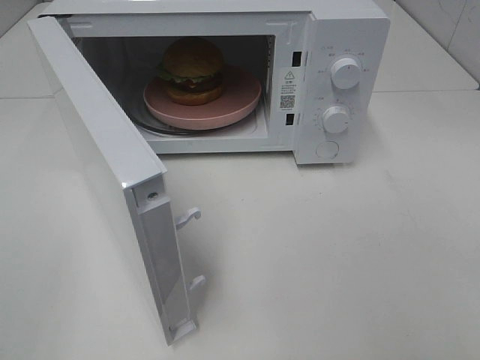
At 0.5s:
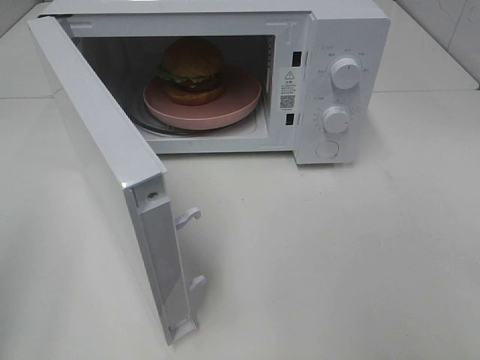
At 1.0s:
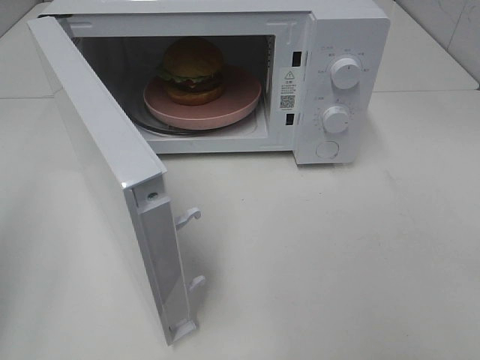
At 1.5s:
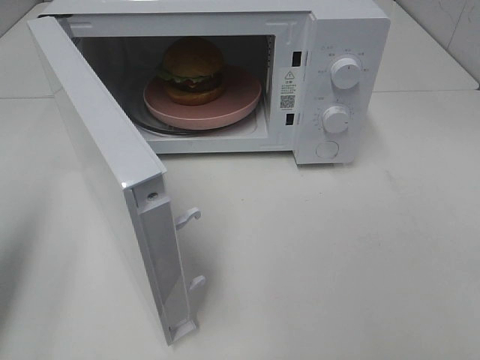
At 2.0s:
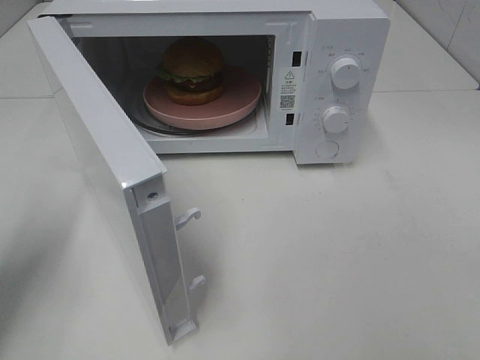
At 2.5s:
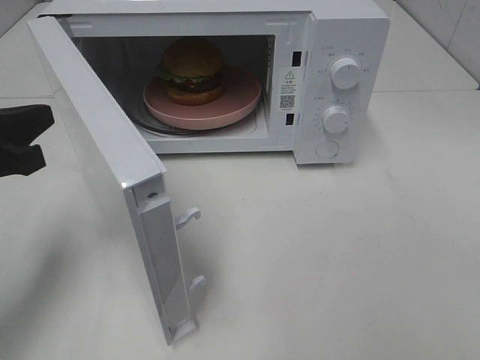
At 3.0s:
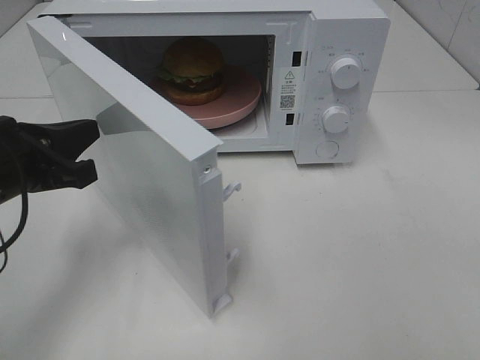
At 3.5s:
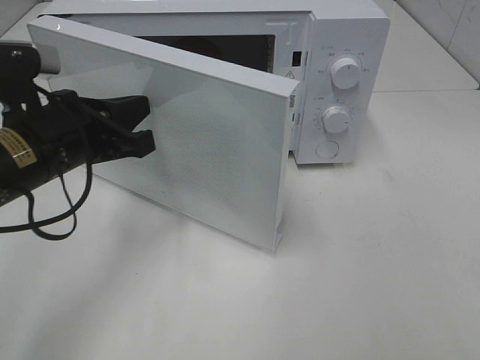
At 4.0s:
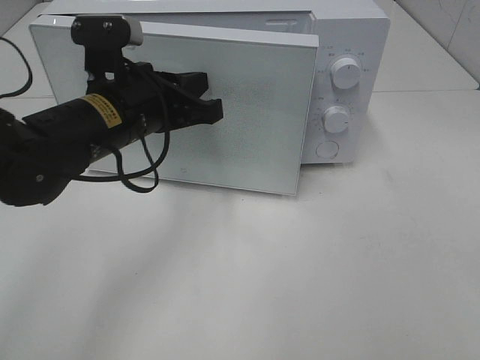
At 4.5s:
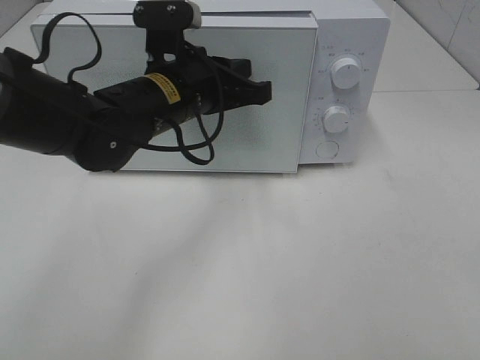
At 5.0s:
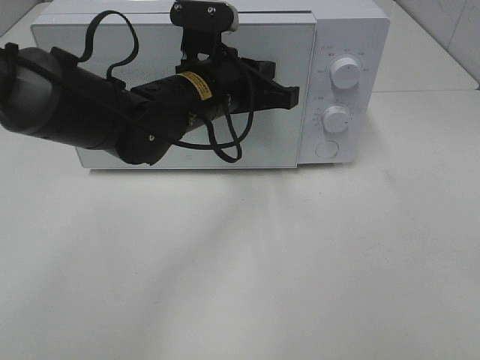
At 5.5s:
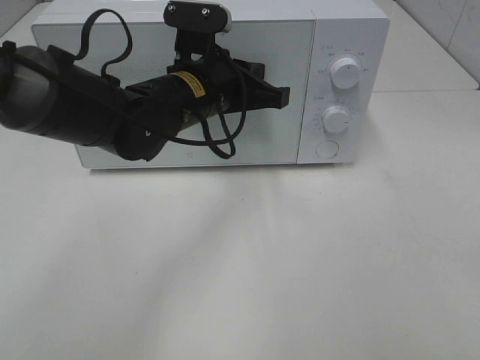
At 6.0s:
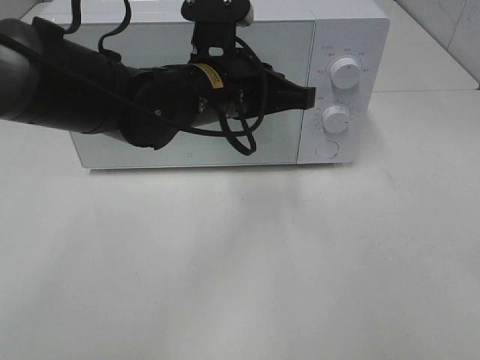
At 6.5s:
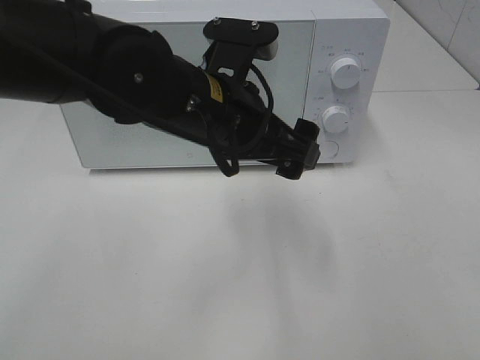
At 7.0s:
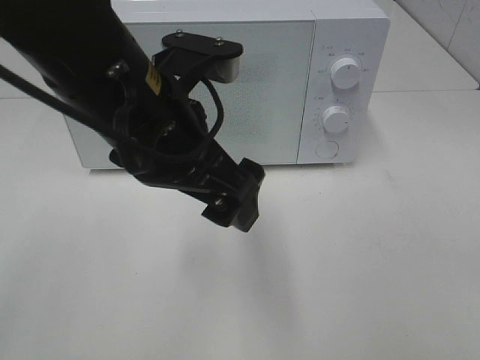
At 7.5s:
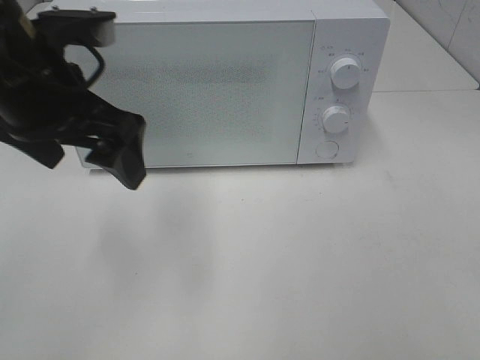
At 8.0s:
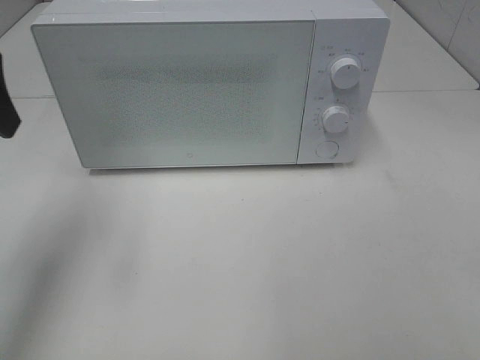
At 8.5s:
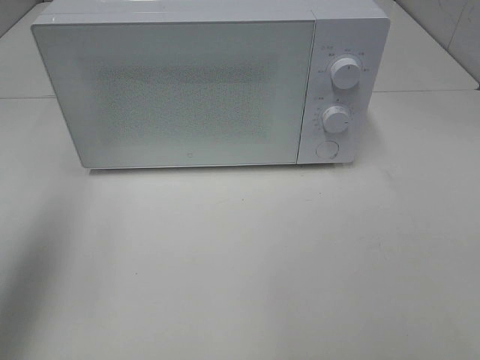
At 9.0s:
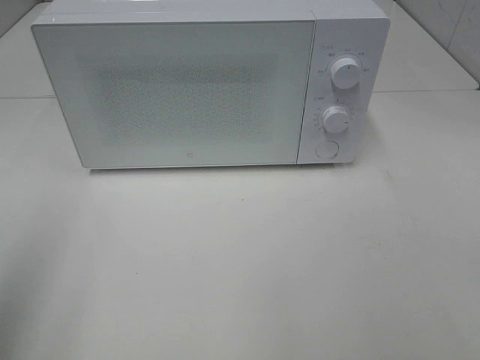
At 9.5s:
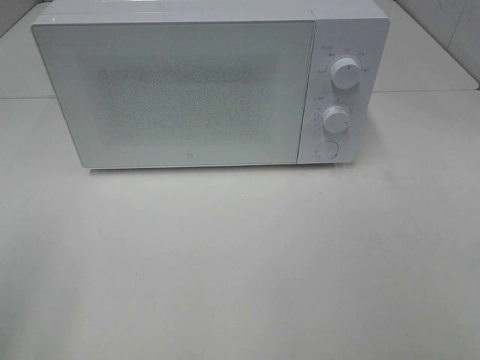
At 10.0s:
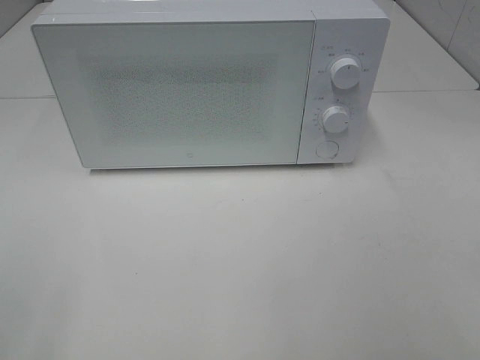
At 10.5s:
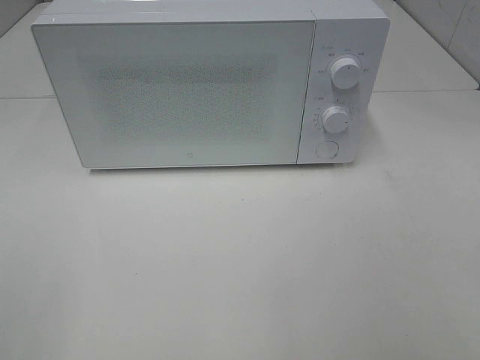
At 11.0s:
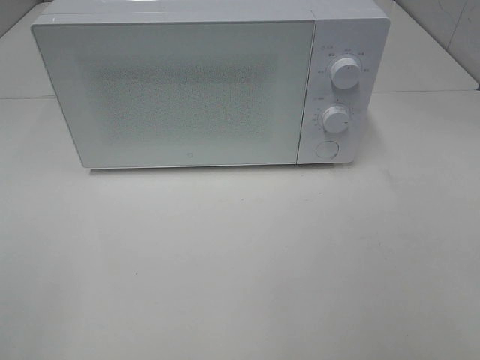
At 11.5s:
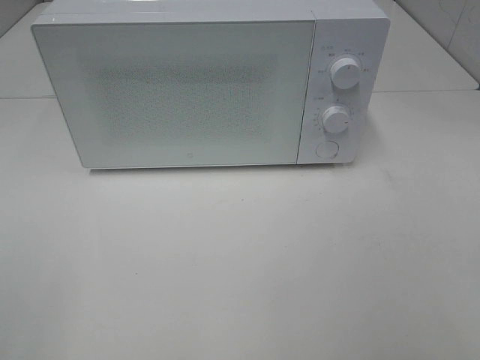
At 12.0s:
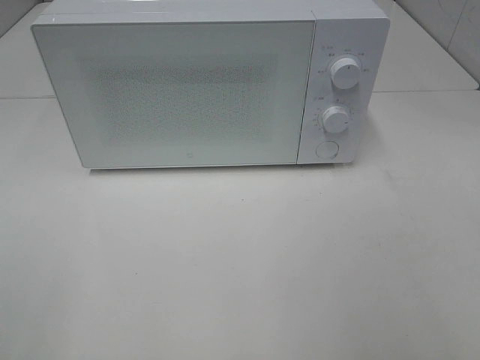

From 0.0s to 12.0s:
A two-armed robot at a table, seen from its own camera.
Task of the whole recording: Heat the burger.
Step, from 0.0s to 5.5s: Left hand: close the microwave door.
From 0.0s to 2.0s: The left gripper heads forward and downward, covering some 20 cm, and closes.
From 2.0s to 4.0s: The left gripper goes some 20 cm to the right and forward.
From 4.0s to 6.0s: The left gripper moves to the right, approximately 10 cm.
From 6.0s to 8.0s: The left gripper moves to the left and upward, about 30 cm, and opens.
From 8.0s to 10.0s: The left gripper moves backward, about 25 cm.

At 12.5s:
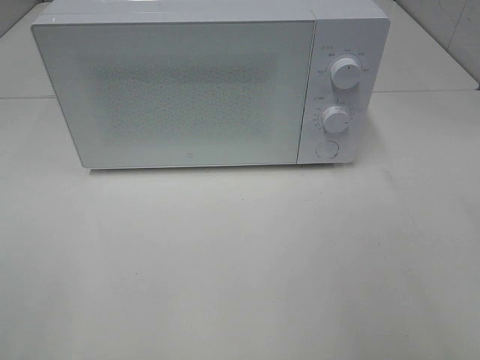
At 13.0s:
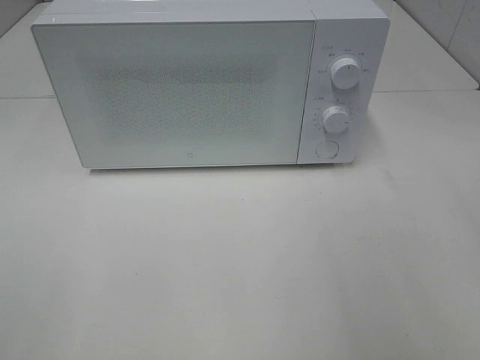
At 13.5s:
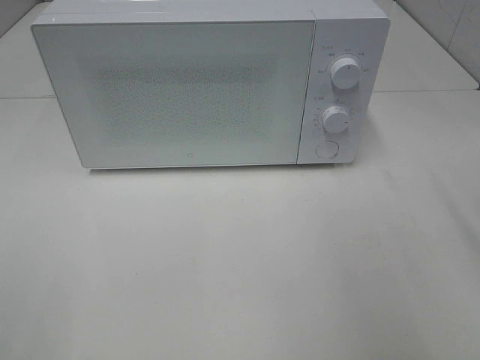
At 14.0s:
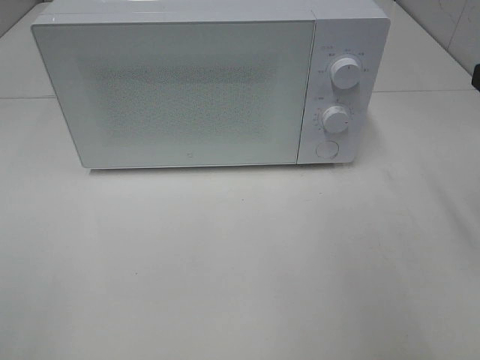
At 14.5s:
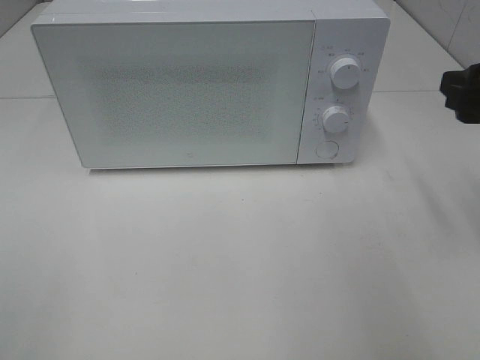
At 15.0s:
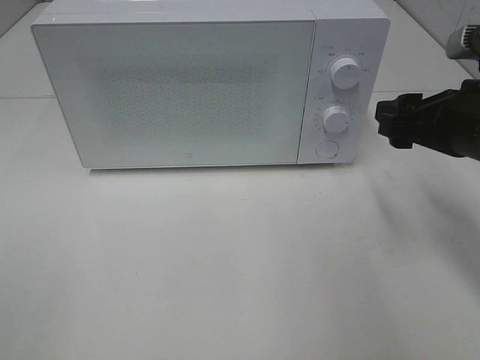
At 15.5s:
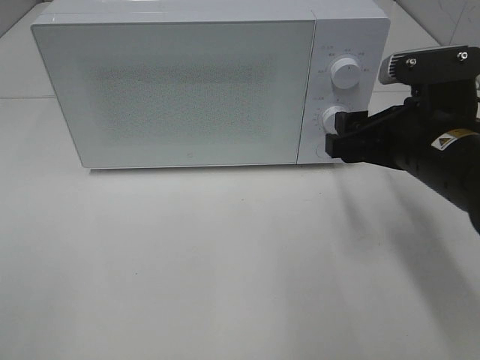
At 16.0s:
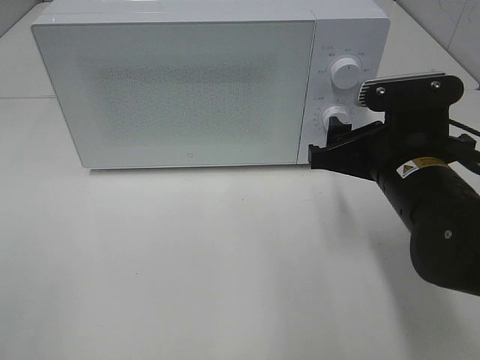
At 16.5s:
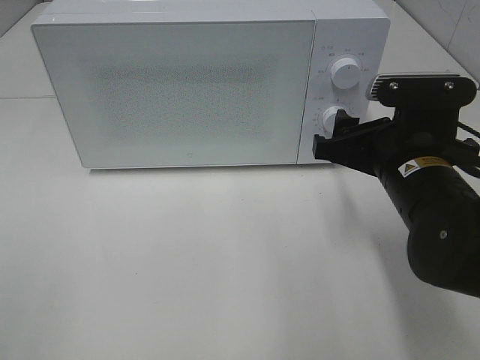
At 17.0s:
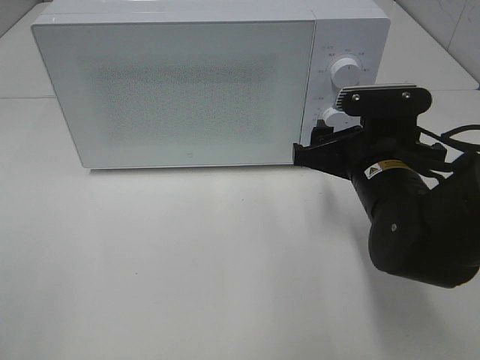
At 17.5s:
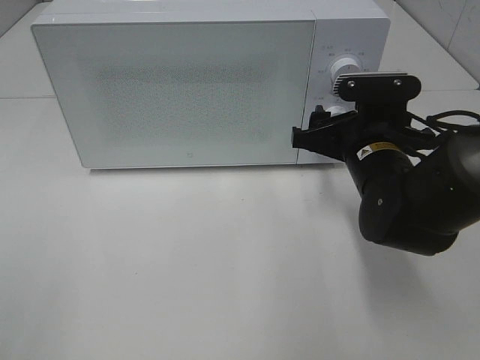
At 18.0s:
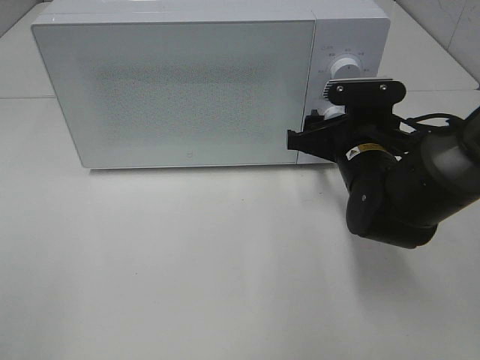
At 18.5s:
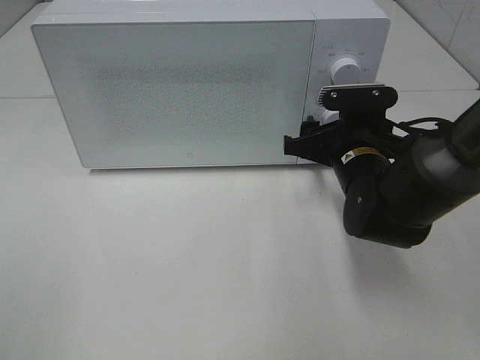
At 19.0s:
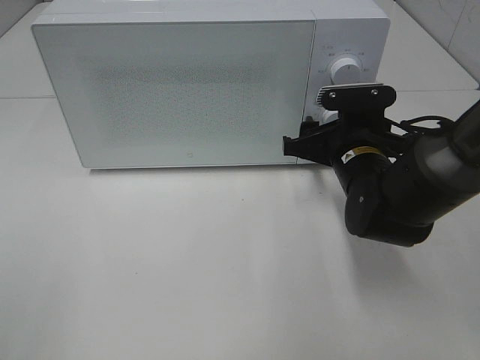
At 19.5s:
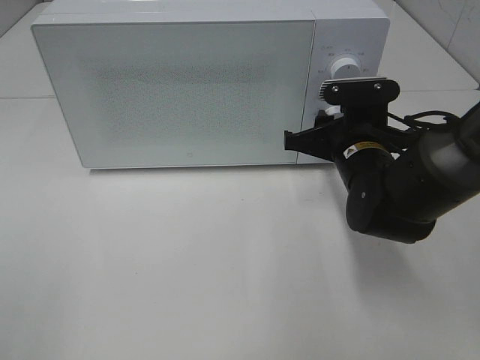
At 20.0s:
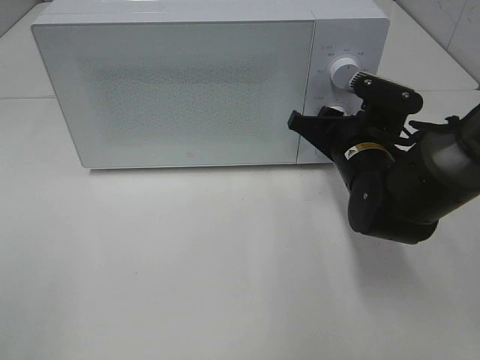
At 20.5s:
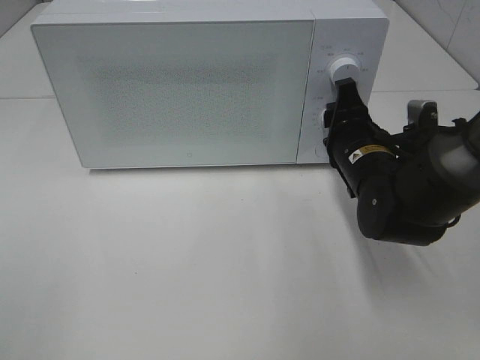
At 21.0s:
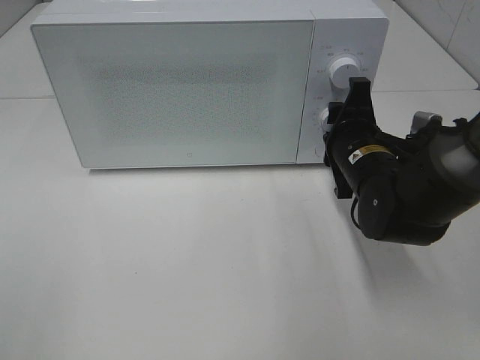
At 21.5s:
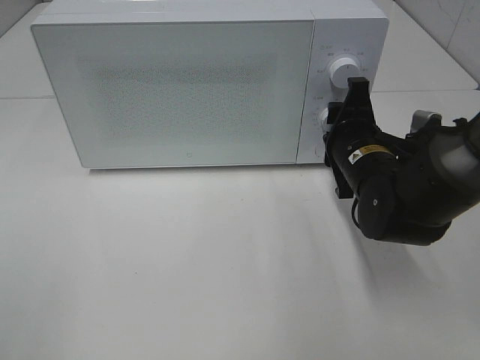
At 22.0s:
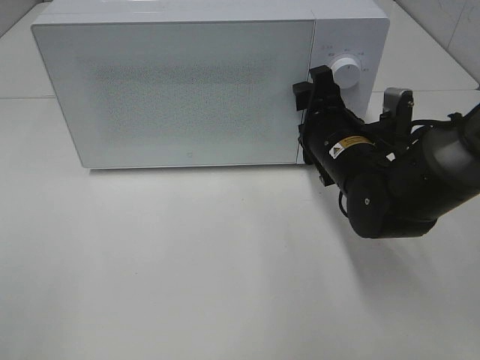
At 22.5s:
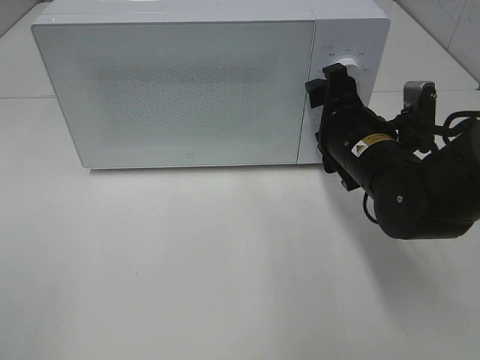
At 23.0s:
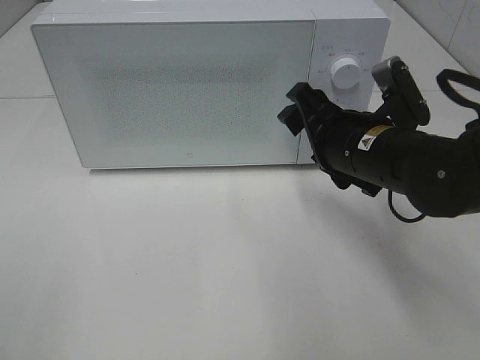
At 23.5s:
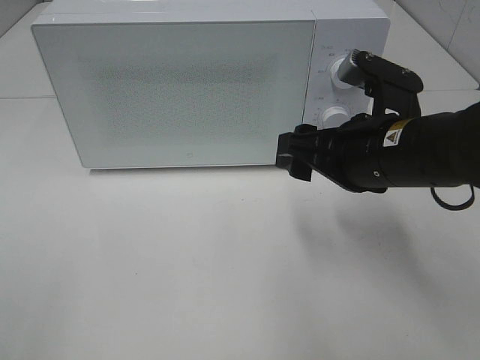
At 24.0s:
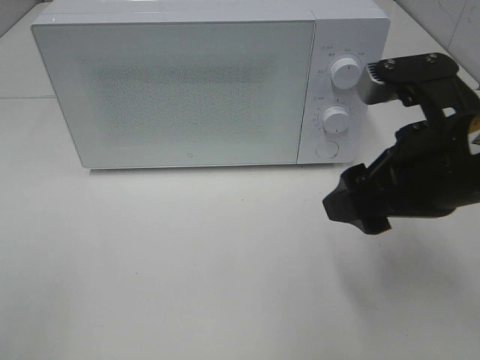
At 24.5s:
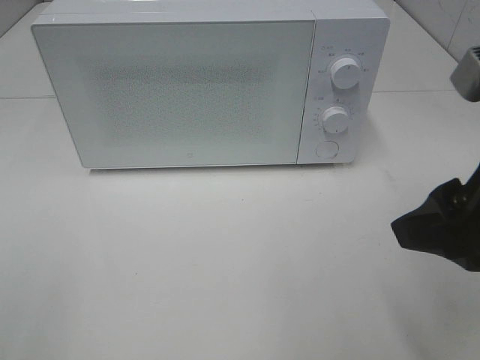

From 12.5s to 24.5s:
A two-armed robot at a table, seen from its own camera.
Task of the whole recording: Heat the burger.
Step, from 12.5s to 21.5s: Right hand: twist timer button.
From 12.5s to 14.5s: The right gripper moves forward and downward, approximately 15 cm.
From 14.5s to 16.5s: The right gripper heads to the left and downward, covering some 15 cm.
From 16.5s to 18.5s: The right gripper travels forward and downward by approximately 10 cm.
From 20.5s to 22.5s: The grippers move only a little.
From 22.5s to 24.5s: The right gripper travels backward and upward by some 20 cm.

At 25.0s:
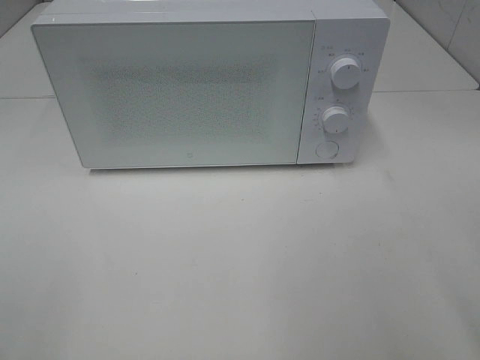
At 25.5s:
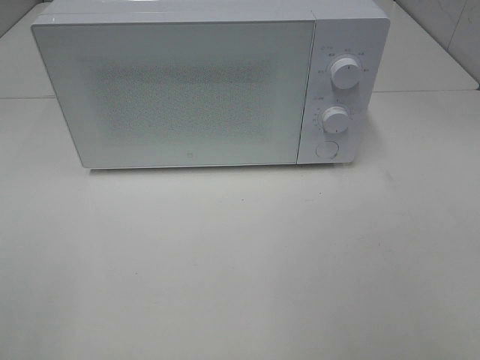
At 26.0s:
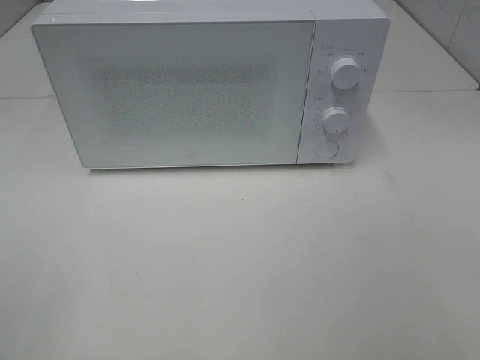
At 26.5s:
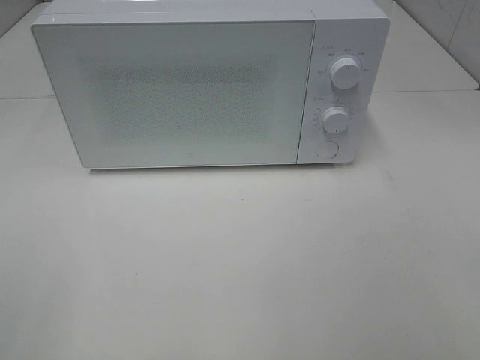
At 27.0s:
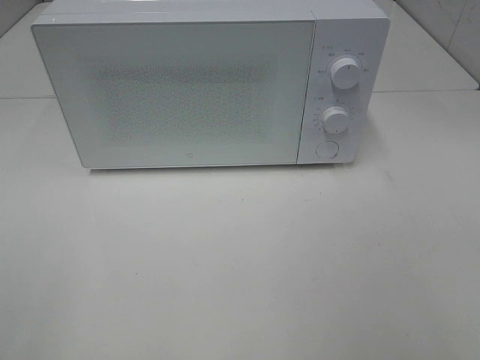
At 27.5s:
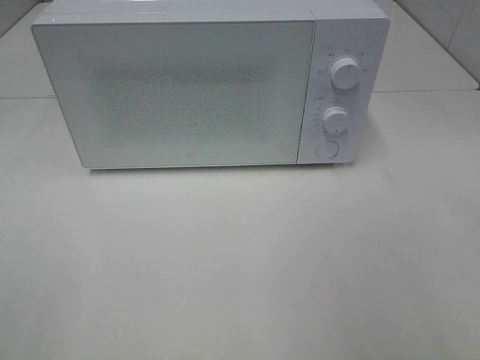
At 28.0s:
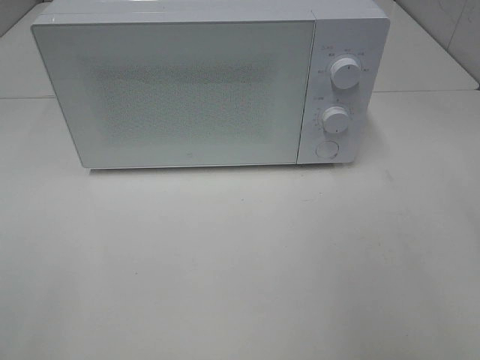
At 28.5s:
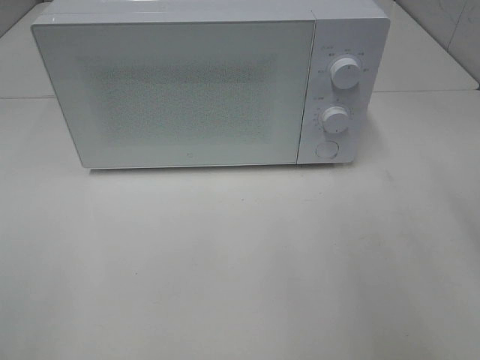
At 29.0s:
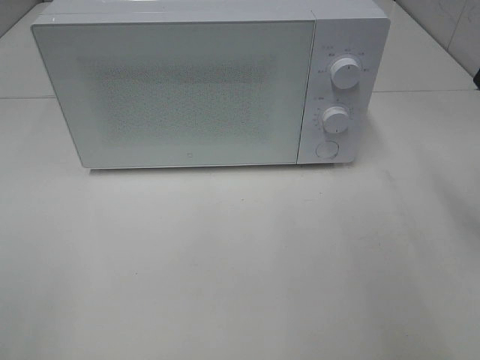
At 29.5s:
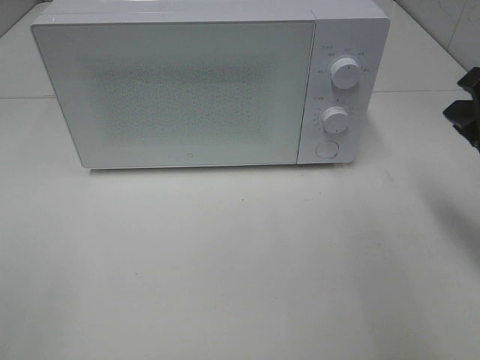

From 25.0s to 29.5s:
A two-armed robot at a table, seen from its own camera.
Task of the whole recording: Heat the burger.
From 27.0s to 29.5s: The right gripper moves forward and downward, roughly 25 cm, and closes its fingers.
